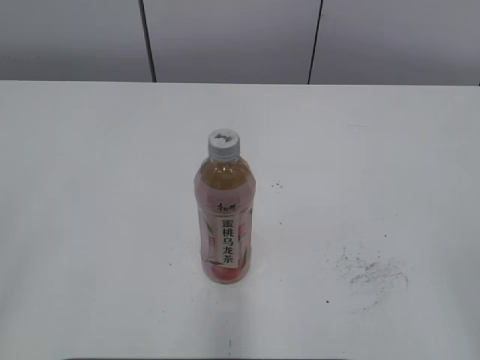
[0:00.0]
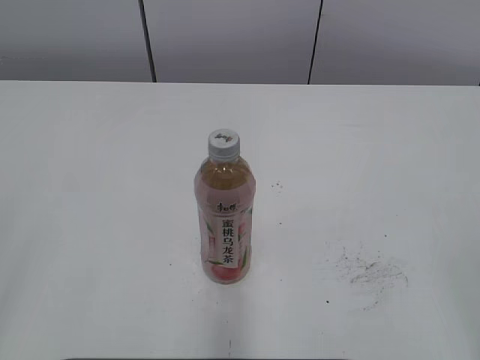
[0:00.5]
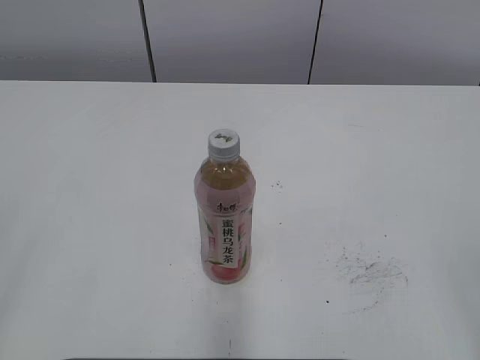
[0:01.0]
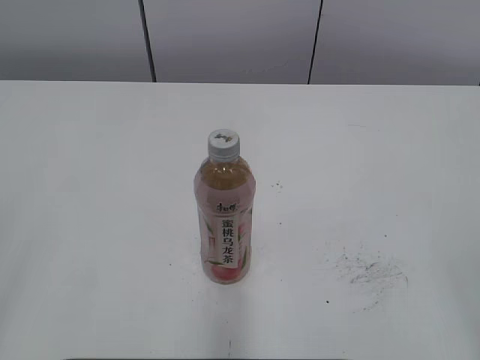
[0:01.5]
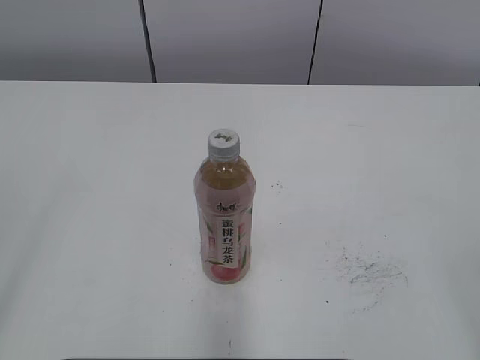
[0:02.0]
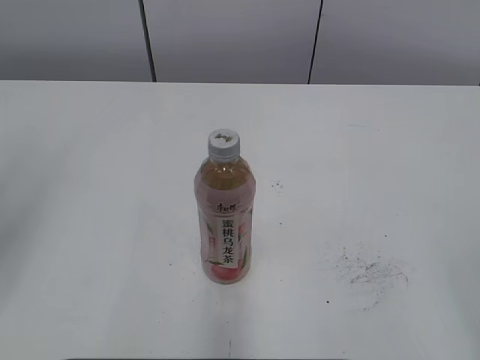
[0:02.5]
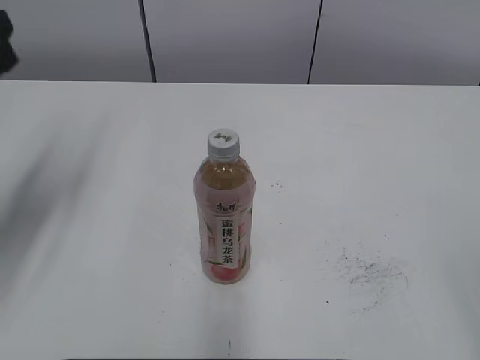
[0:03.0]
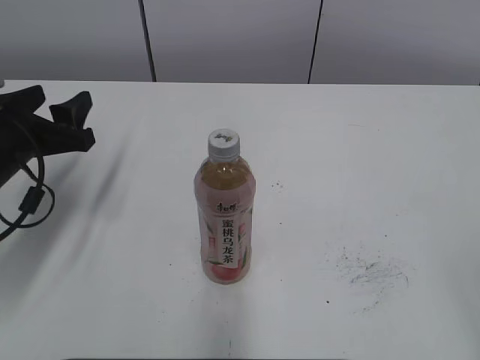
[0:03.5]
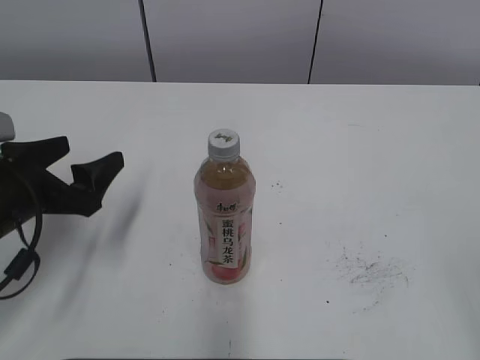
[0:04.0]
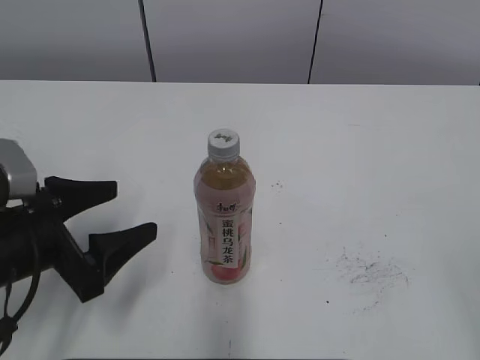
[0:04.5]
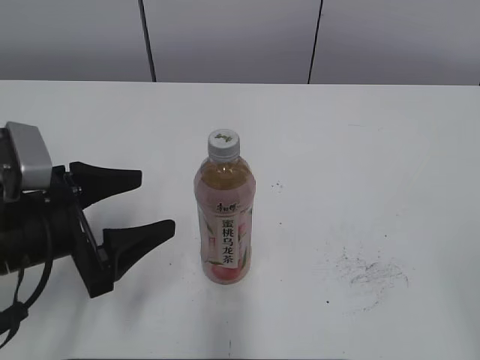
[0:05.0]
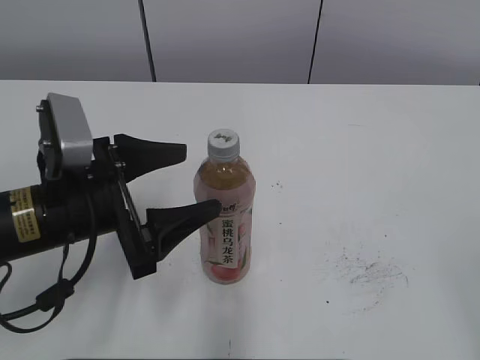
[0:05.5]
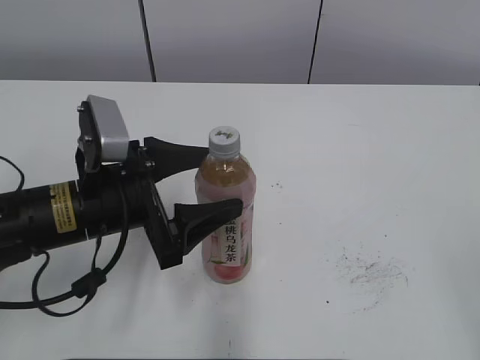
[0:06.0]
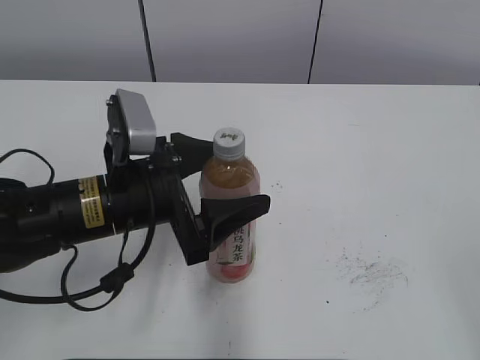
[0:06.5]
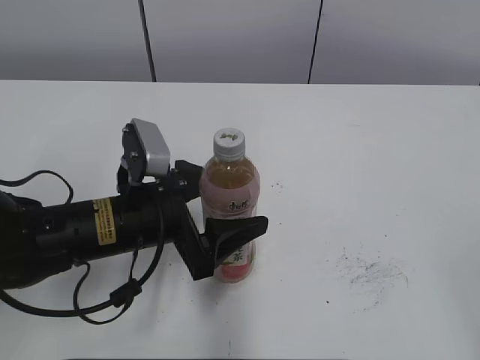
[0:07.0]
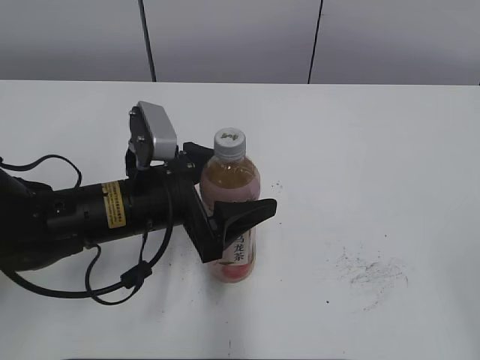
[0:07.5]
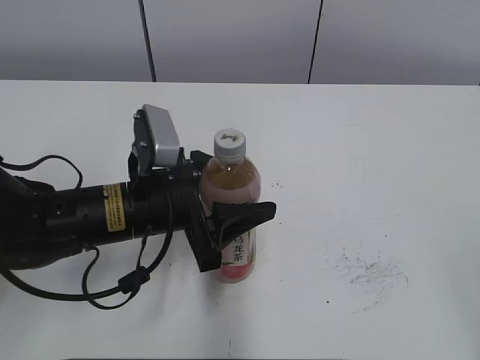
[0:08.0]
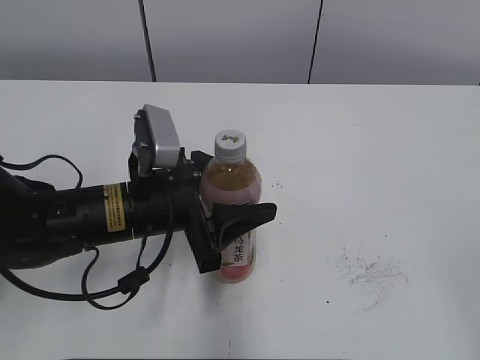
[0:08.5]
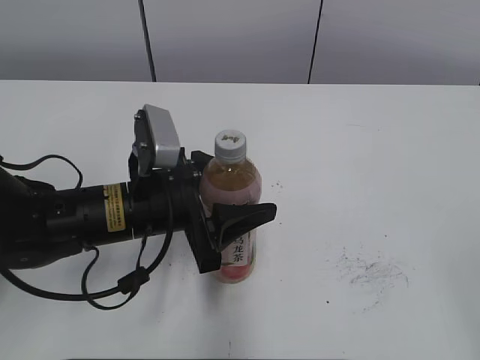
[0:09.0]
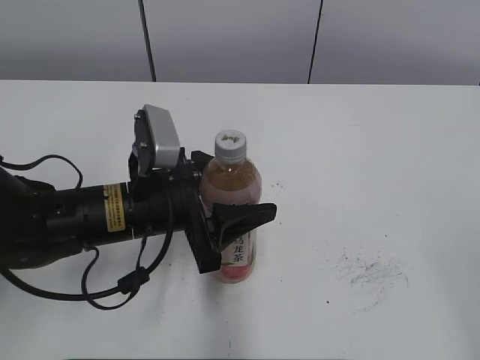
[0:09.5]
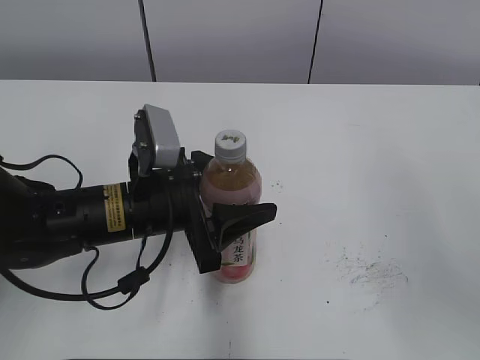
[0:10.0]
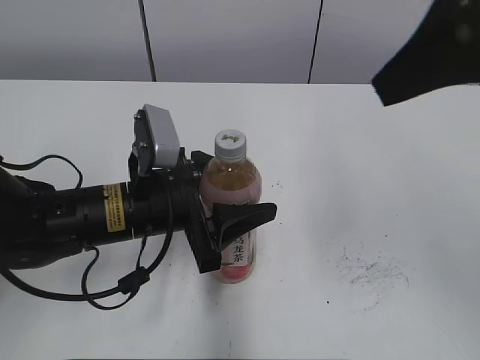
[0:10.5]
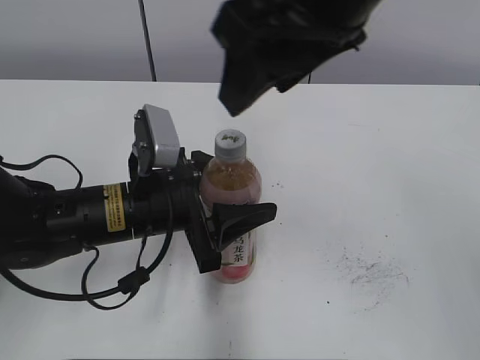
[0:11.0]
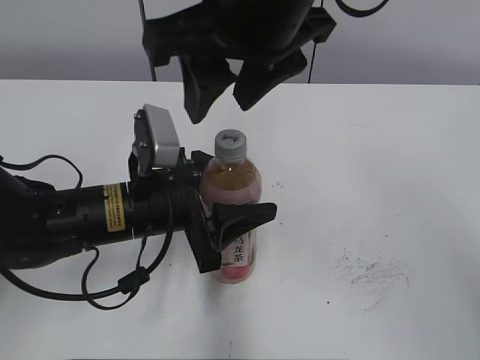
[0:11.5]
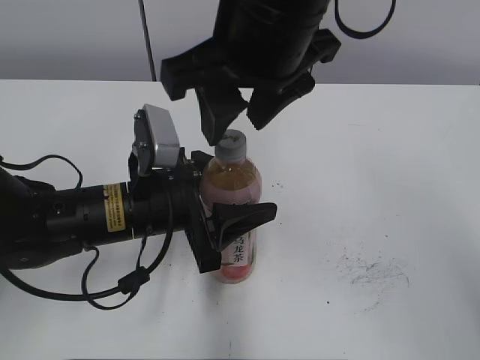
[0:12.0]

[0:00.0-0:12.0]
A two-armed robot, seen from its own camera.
Step, 0:00.0 to 0:07.5: Grab the Peach Oolong Tea with the left hand.
0:02.0 to 0:04.0: The left gripper goes approximately 30 cm forward and downward, and opens.
0:04.0 to 0:06.0: The left gripper travels to the right by some 10 cm.
0:06.0 to 0:08.0: The left gripper closes.
0:08.0 to 0:10.0: The right gripper is displaced forward and upward by about 15 cm.
0:10.0 to 0:12.0: The right gripper goes about 25 cm to the left and forward.

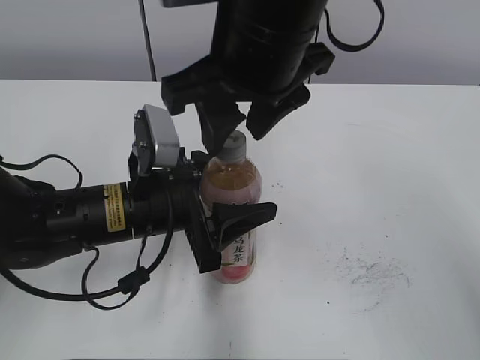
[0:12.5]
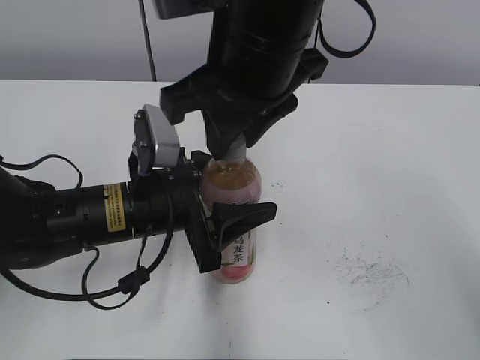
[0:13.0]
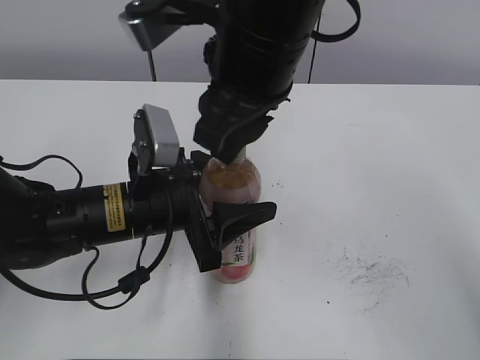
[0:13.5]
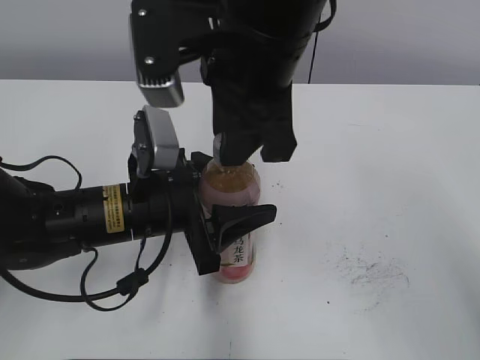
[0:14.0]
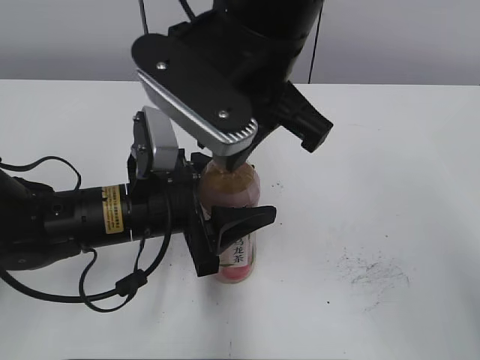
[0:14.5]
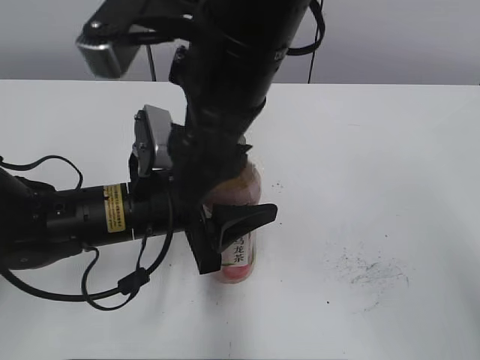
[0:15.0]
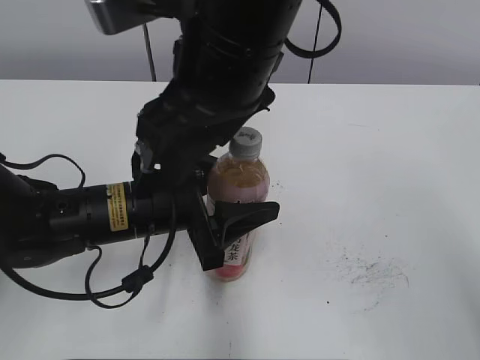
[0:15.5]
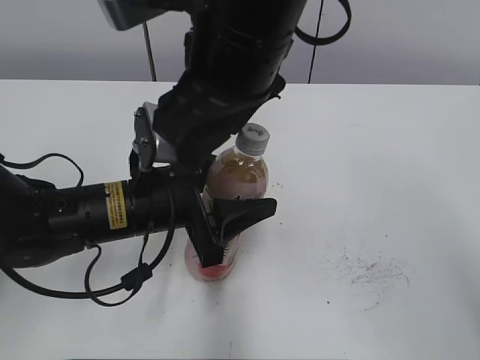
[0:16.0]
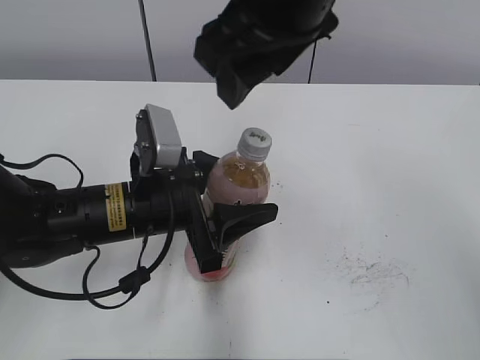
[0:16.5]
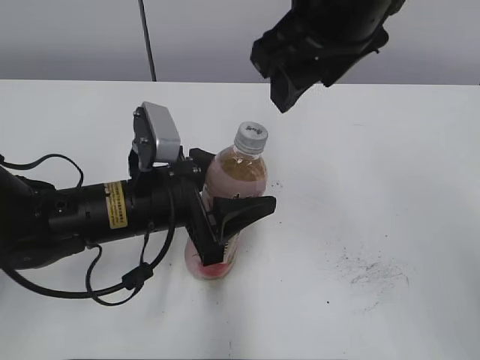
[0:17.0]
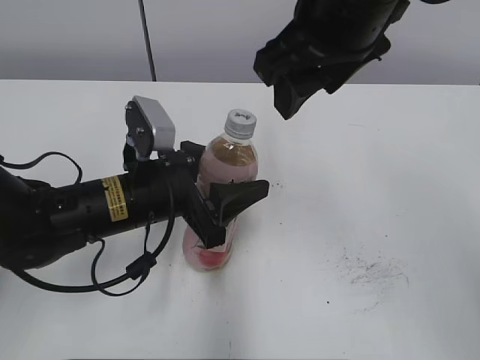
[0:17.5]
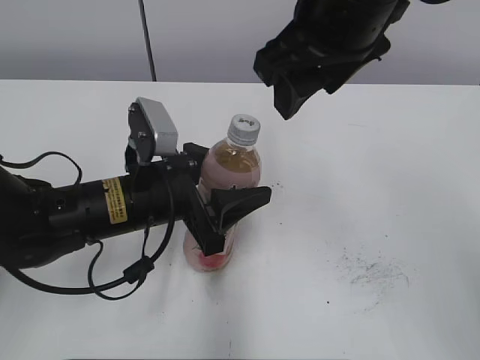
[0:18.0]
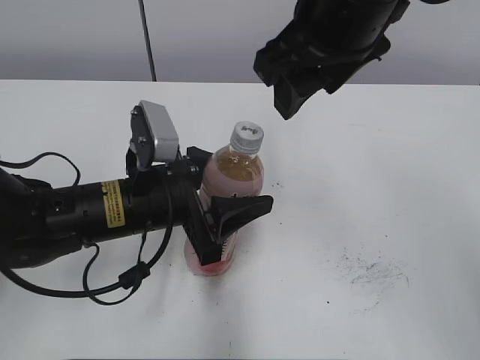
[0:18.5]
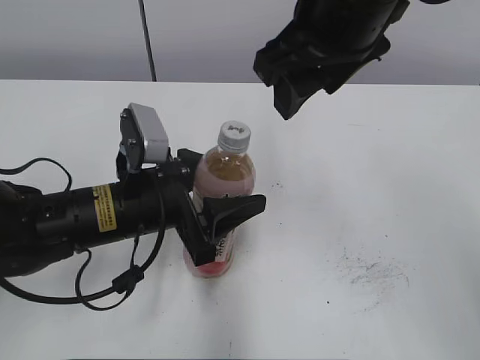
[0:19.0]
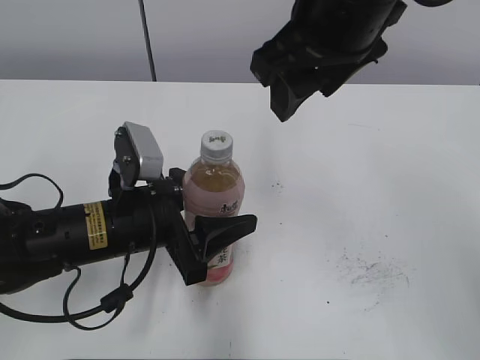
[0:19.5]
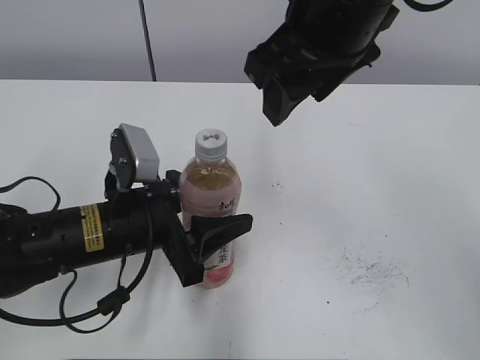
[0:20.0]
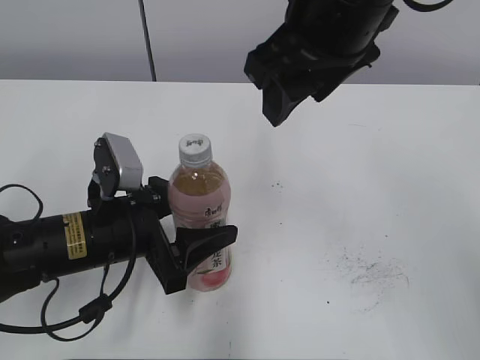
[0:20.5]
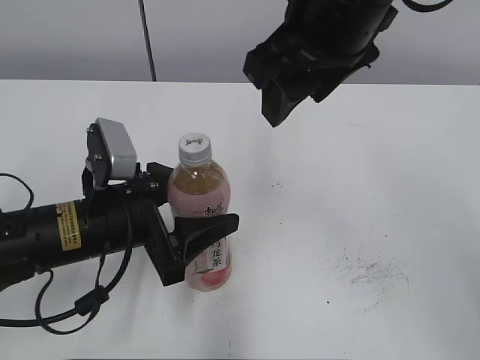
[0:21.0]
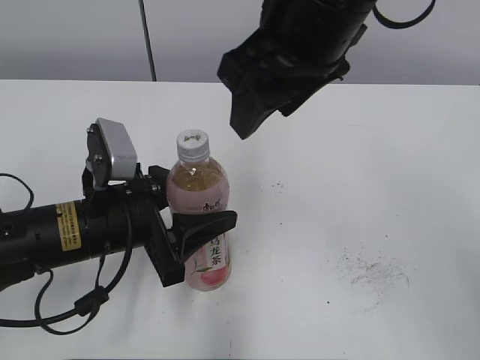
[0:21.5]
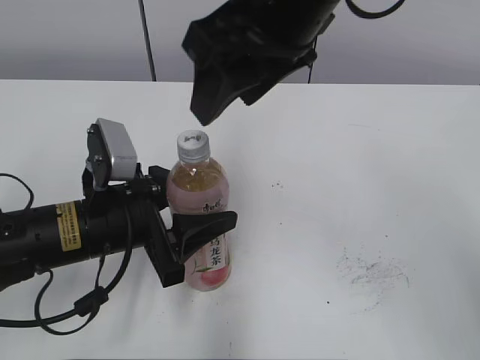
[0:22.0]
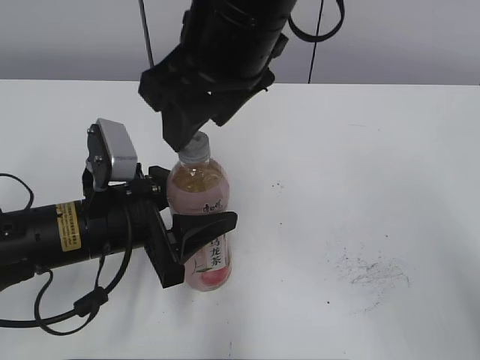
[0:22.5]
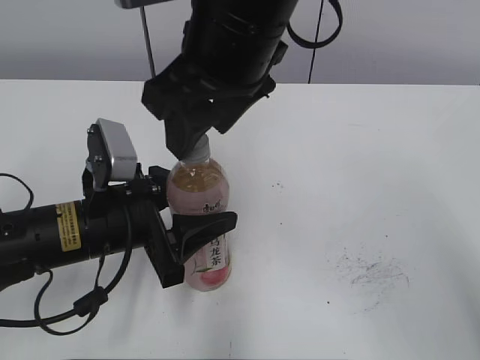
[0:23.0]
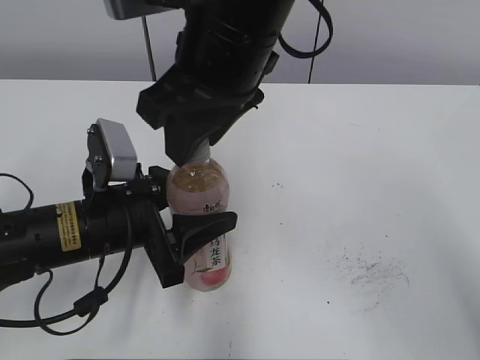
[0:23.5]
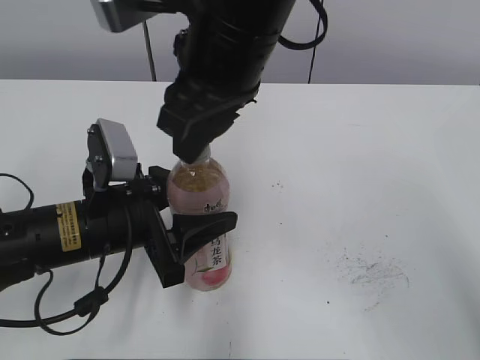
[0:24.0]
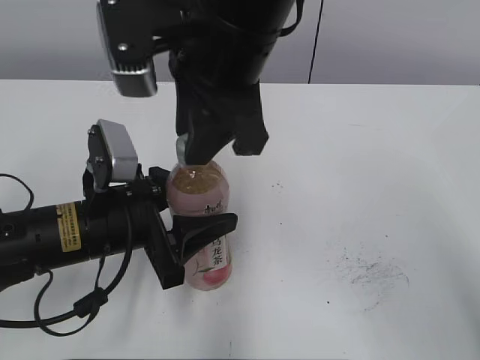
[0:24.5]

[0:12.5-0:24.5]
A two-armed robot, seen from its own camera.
0:12.5 to 0:14.5: The right gripper closes up.
0:14.5 to 0:16.5: The right gripper moves some 5 cm, and opens up.
0:16.5 to 0:18.5: The grippers stay close to where they were, moving slightly.
0:20.5 to 0:22.5: The right gripper heads to the left, covering approximately 5 cm; the left gripper closes.
0:22.5 to 0:24.5: The right gripper closes up.

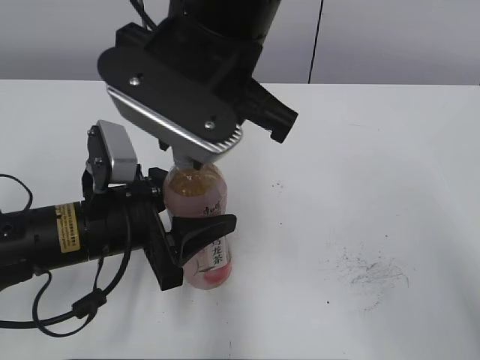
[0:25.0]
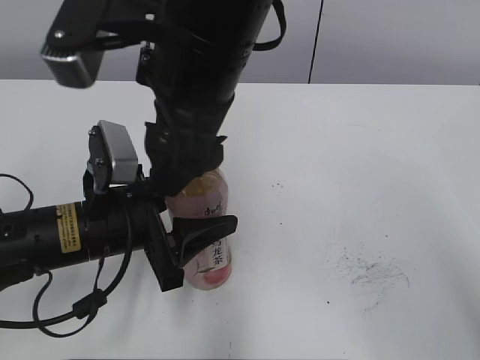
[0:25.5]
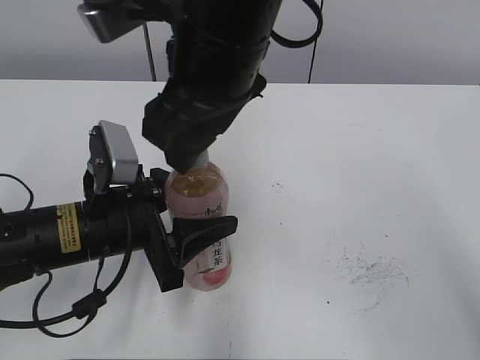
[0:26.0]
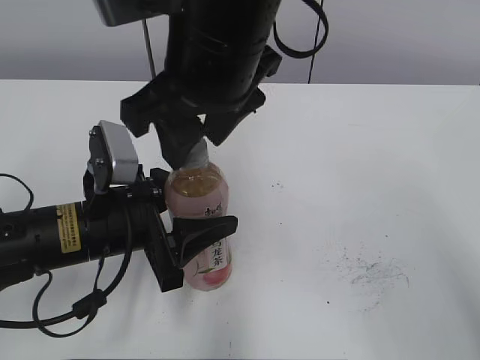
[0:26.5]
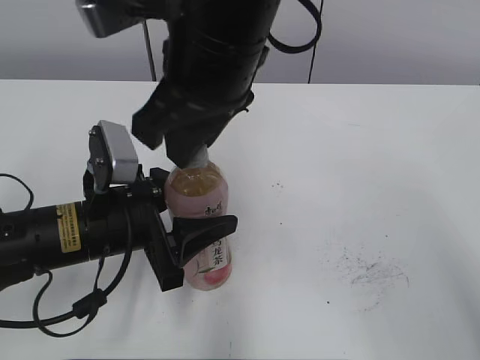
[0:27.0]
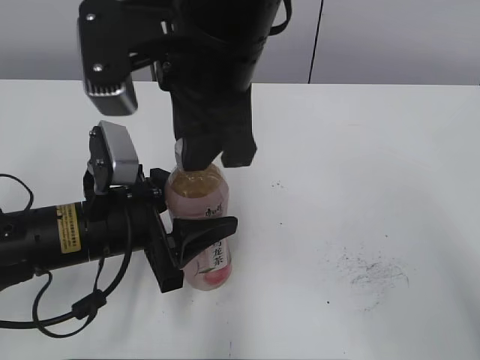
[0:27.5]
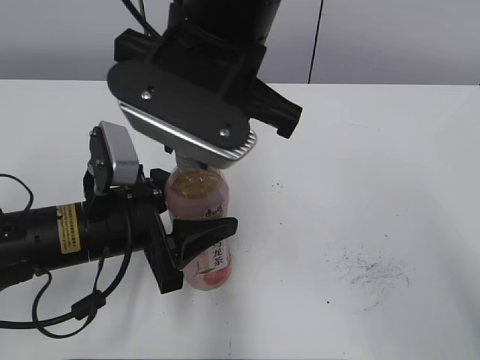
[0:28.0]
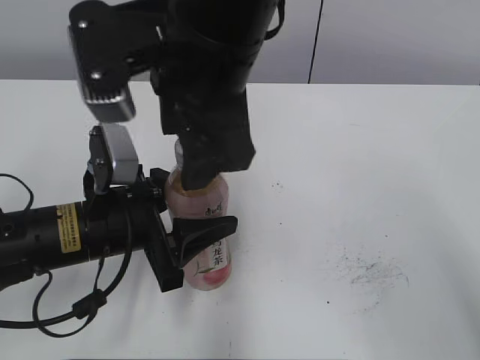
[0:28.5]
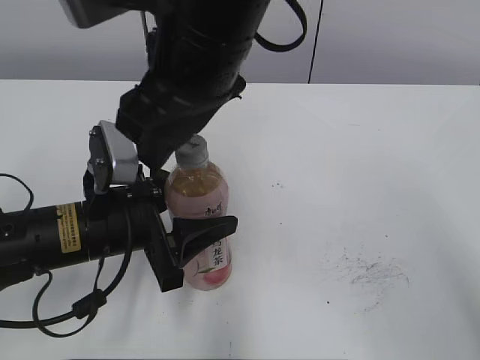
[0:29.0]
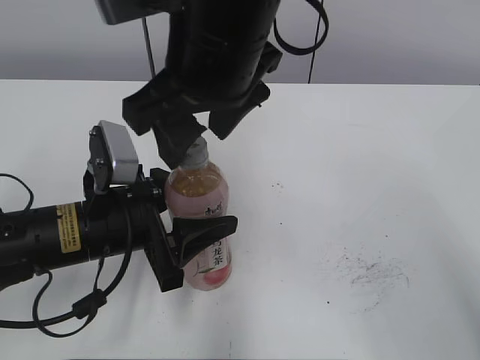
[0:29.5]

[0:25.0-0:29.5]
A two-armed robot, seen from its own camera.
0:25.0 to 0:27.0: The right gripper opens, then closes again.
0:27.0 to 0:29.5: The right gripper opens up.
